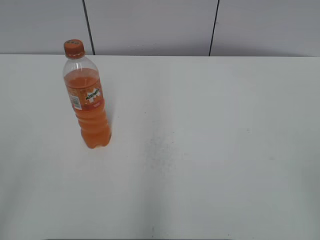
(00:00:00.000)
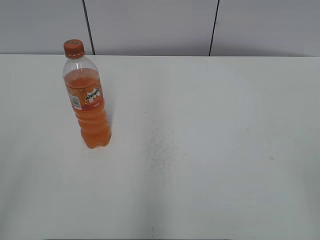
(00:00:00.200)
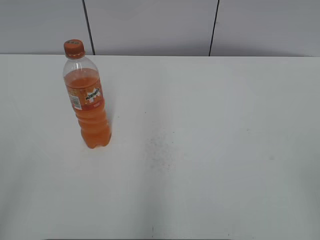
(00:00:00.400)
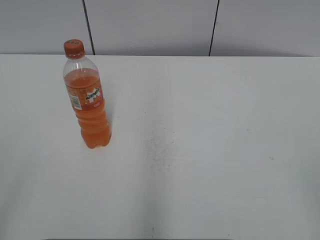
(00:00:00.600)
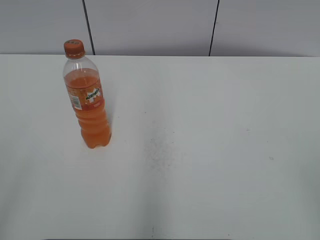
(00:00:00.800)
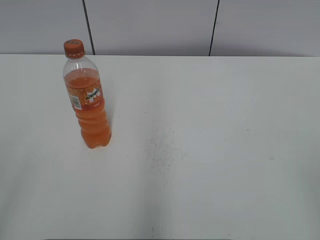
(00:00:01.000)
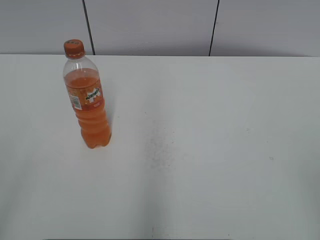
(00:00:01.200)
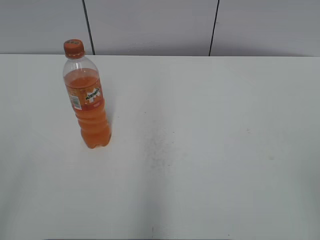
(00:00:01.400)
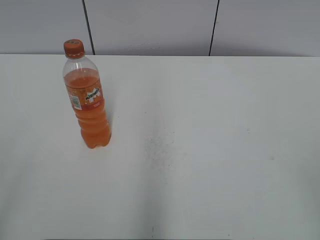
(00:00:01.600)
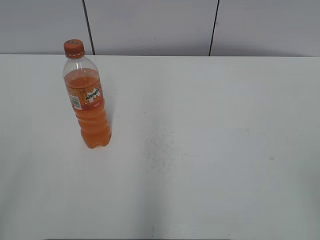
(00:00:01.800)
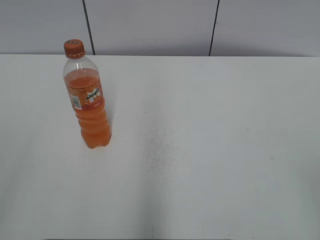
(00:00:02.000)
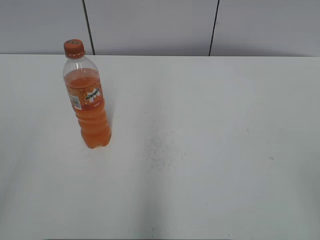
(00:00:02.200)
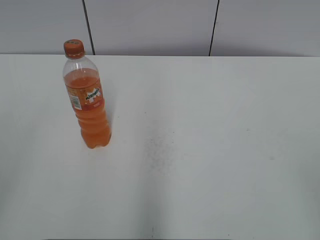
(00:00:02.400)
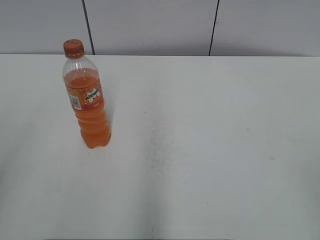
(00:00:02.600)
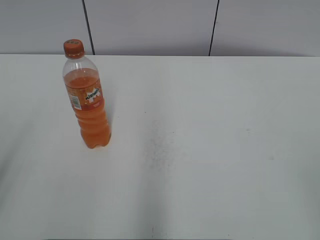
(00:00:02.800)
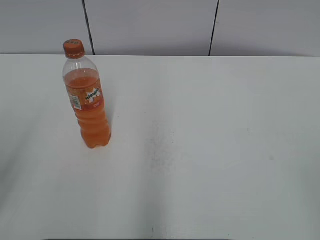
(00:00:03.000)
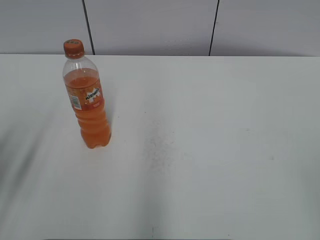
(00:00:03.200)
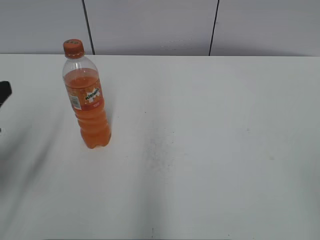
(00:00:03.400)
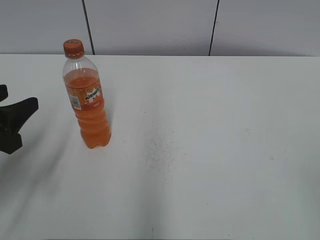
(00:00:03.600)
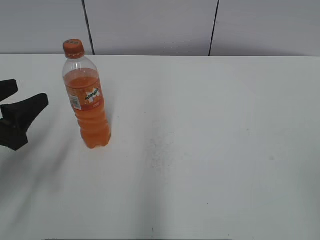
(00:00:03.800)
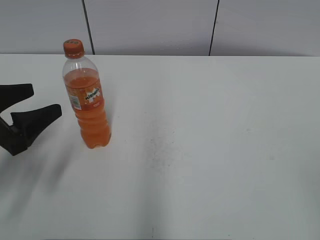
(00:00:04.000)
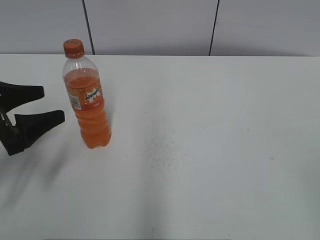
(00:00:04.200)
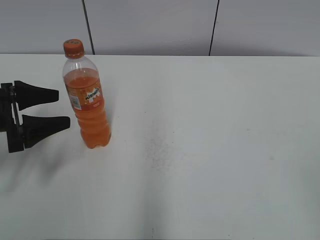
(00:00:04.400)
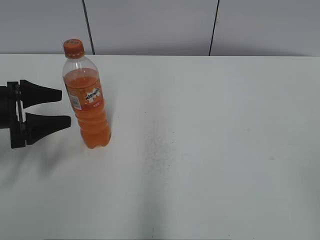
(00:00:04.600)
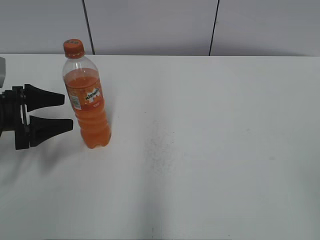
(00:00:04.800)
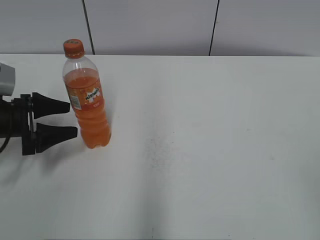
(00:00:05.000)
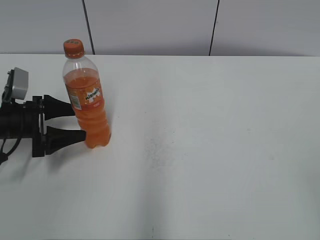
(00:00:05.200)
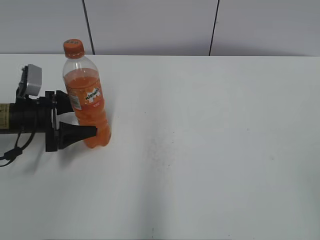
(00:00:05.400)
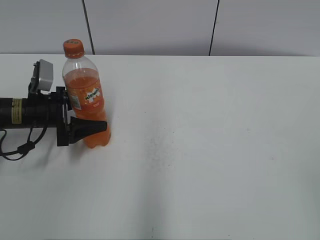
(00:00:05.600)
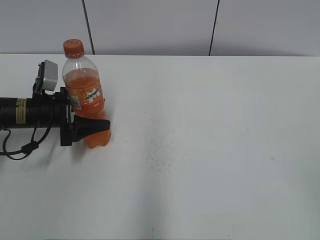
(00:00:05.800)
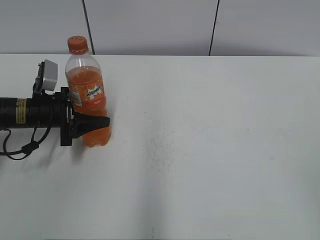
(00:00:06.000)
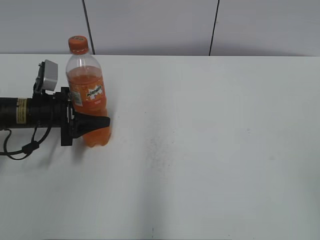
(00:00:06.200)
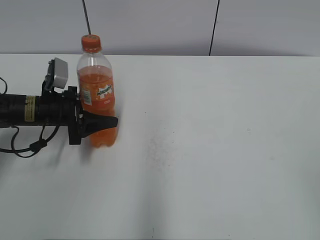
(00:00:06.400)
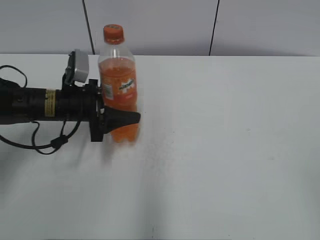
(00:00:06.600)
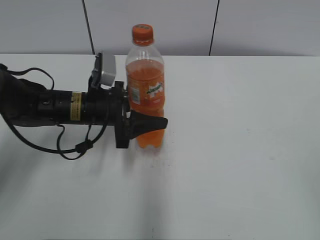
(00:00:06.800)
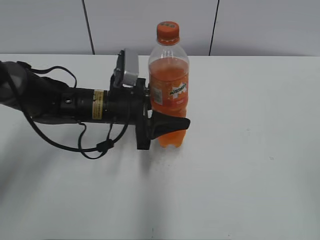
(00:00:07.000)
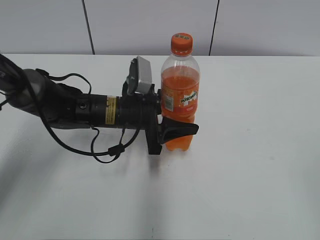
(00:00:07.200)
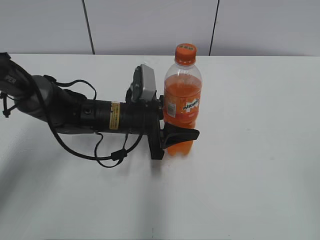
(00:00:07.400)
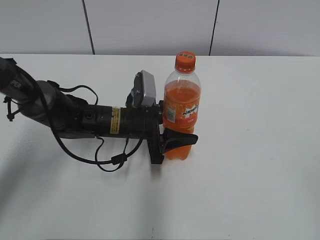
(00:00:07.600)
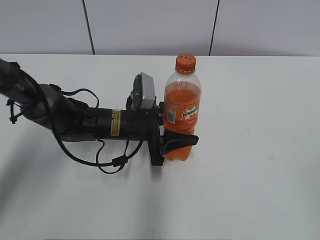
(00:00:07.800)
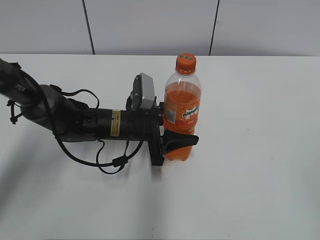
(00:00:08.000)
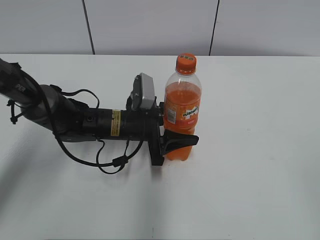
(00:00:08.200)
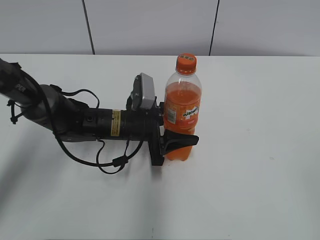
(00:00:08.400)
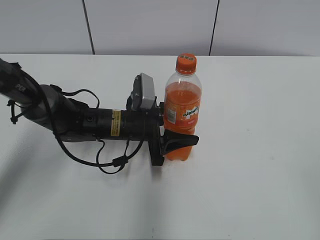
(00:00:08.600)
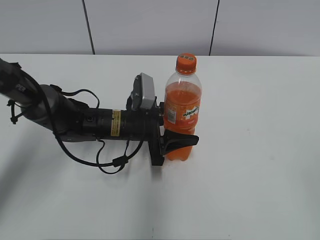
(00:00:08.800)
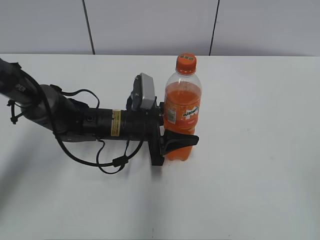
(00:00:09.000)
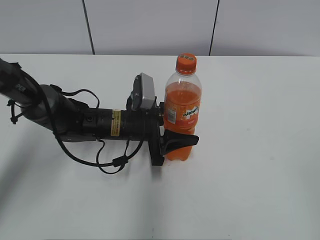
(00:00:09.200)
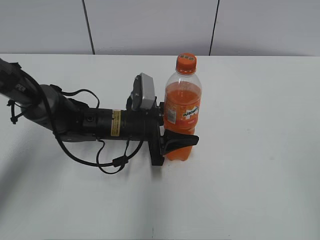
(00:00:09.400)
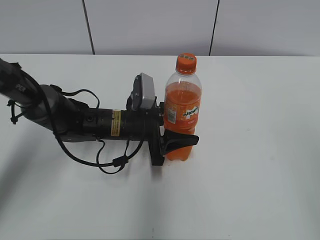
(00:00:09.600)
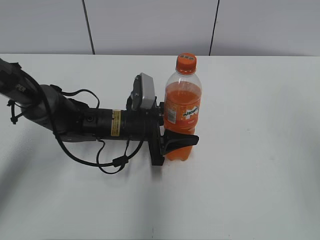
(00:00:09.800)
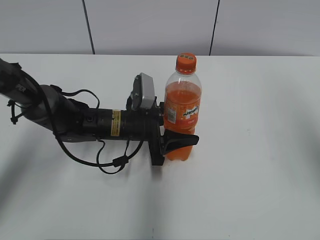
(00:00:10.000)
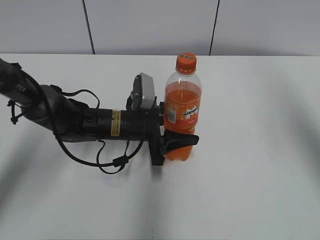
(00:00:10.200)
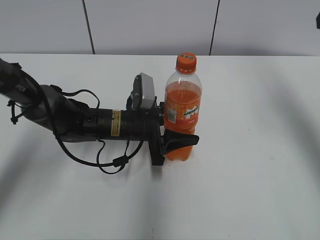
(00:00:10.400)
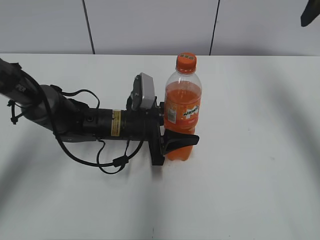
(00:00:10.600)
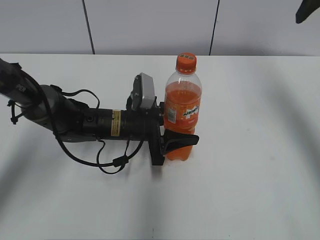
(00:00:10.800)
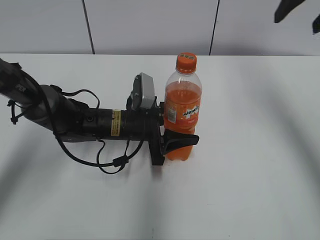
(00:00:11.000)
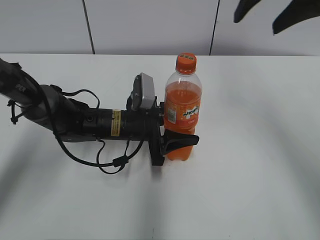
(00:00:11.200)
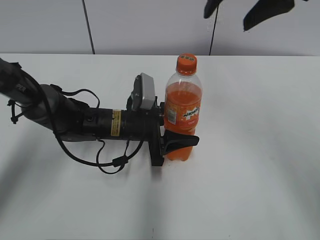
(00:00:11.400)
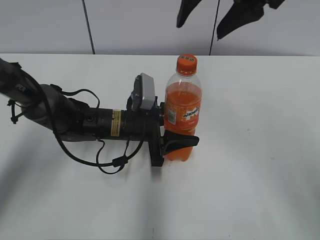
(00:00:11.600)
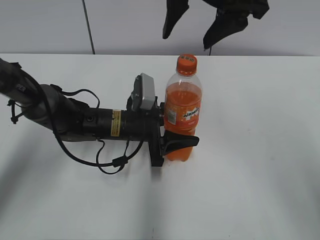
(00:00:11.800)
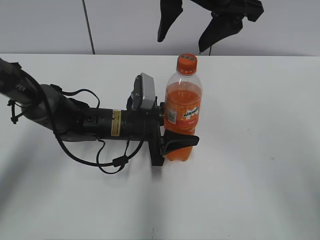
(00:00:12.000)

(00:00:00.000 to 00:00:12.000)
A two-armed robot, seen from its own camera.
Step, 00:00:00.000 - 00:00:06.000: Grab the Mirinda with the left hand.
Step, 00:00:06.200 - 00:00:08.200: Move the Mirinda from left to right.
00:00:03.000 - 00:00:04.400: The left gripper heads forward and downward, covering approximately 20 cm, and opens its fingers.
00:00:04.400 - 00:00:06.000: The left gripper travels forward and downward by approximately 10 cm, and closes its fingers.
00:00:06.000 - 00:00:07.600: The left gripper is displaced to the right by some 15 cm.
00:00:07.600 - 00:00:09.000: The two grippers keep their place.
00:00:09.000 - 00:00:10.400: The right gripper is displaced forward by approximately 30 cm.
00:00:10.400 - 00:00:12.000: The right gripper shifts some 20 cm to the left.

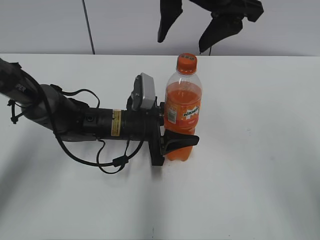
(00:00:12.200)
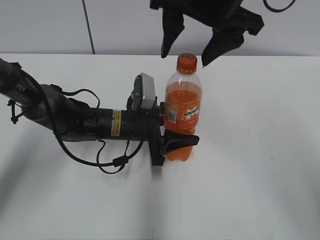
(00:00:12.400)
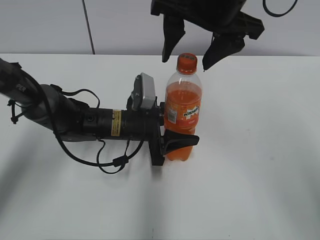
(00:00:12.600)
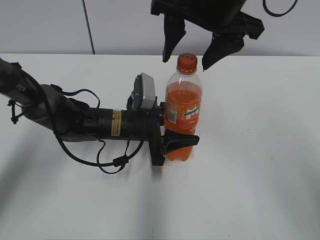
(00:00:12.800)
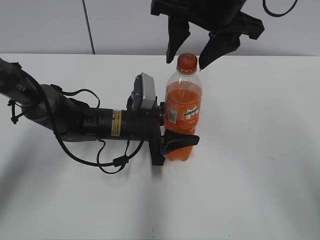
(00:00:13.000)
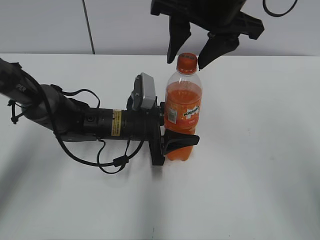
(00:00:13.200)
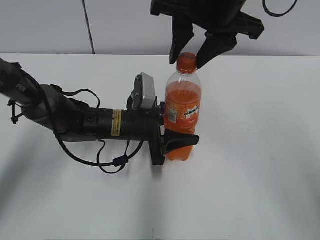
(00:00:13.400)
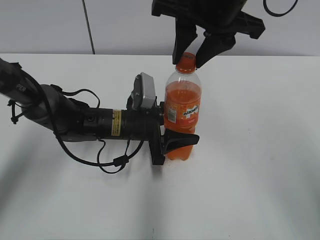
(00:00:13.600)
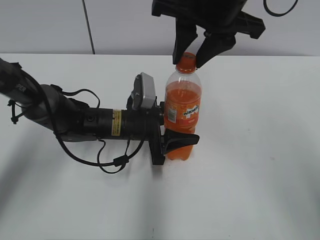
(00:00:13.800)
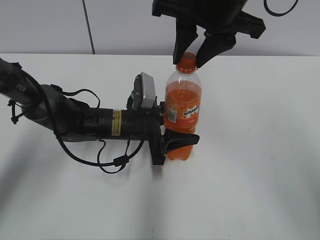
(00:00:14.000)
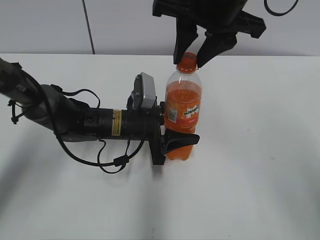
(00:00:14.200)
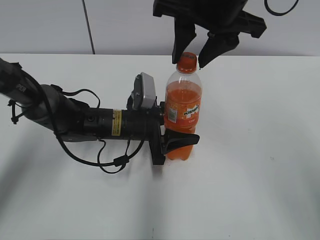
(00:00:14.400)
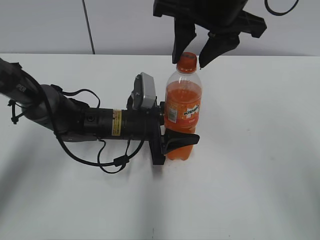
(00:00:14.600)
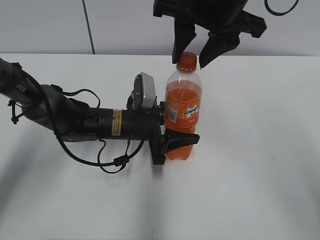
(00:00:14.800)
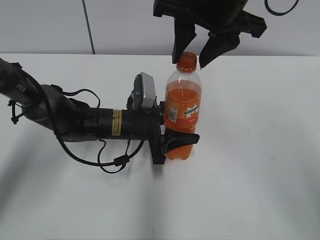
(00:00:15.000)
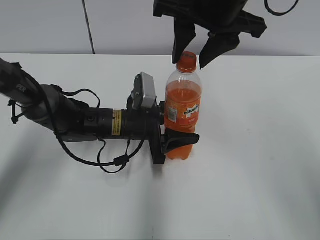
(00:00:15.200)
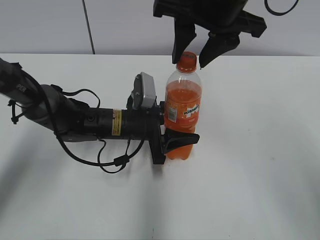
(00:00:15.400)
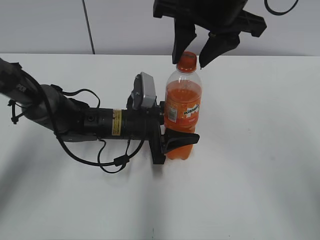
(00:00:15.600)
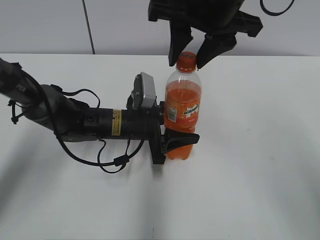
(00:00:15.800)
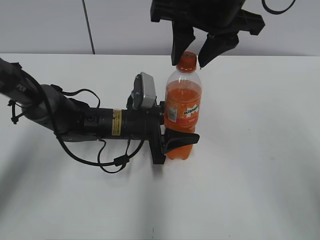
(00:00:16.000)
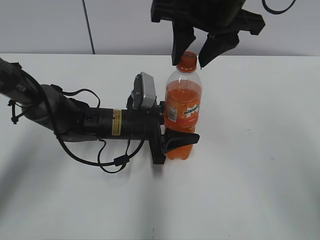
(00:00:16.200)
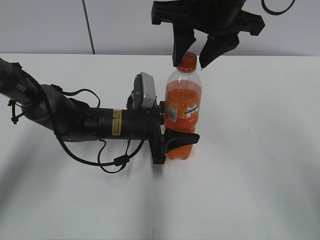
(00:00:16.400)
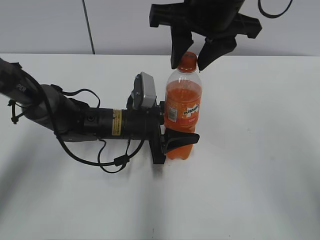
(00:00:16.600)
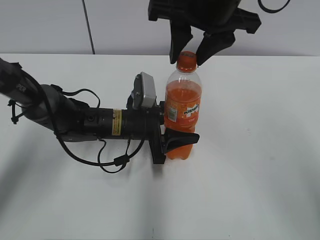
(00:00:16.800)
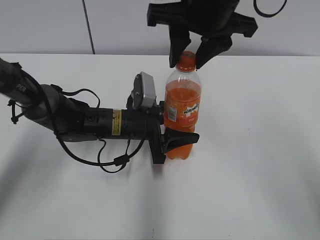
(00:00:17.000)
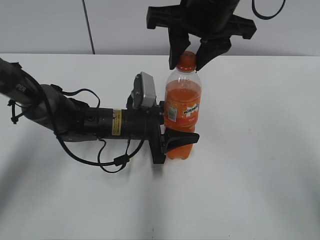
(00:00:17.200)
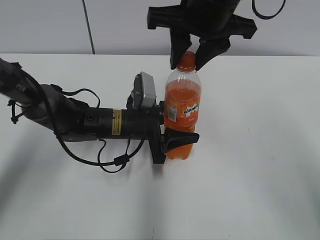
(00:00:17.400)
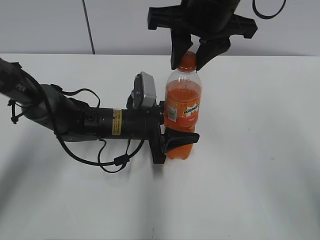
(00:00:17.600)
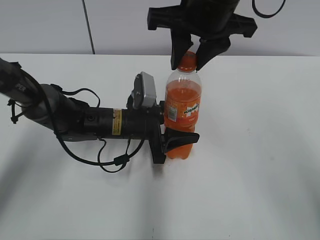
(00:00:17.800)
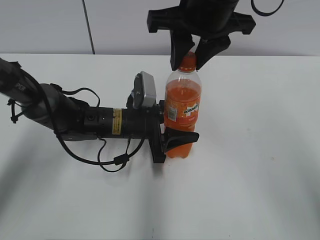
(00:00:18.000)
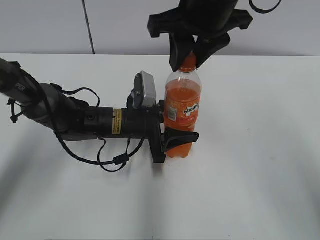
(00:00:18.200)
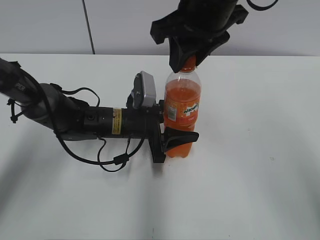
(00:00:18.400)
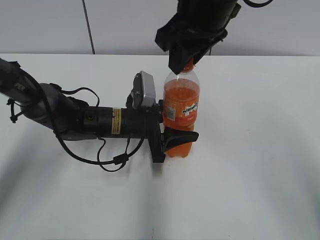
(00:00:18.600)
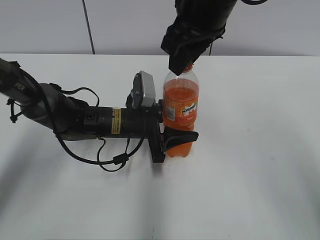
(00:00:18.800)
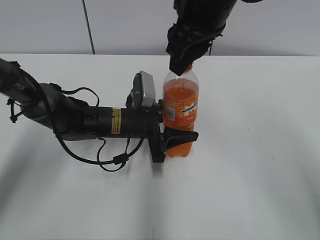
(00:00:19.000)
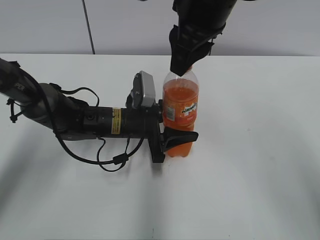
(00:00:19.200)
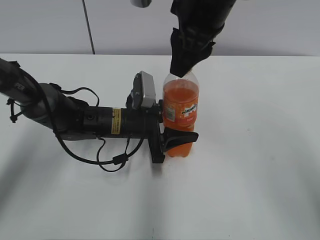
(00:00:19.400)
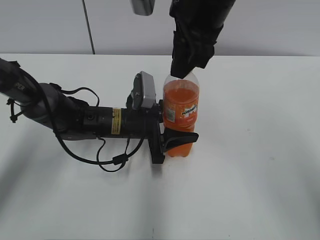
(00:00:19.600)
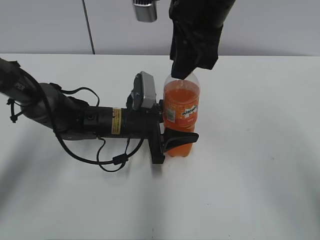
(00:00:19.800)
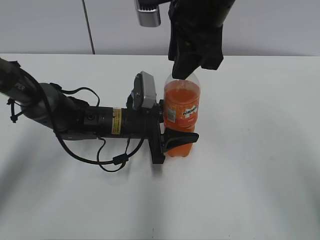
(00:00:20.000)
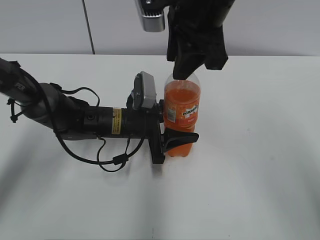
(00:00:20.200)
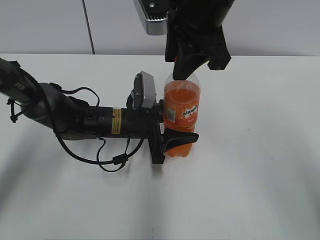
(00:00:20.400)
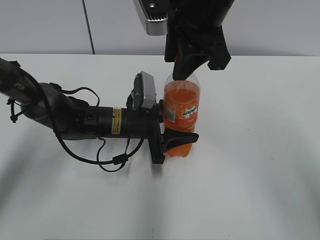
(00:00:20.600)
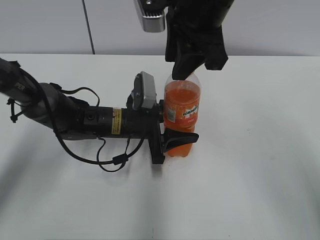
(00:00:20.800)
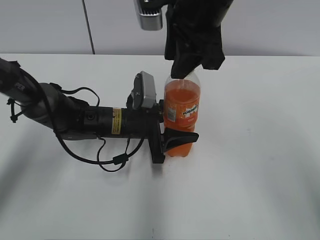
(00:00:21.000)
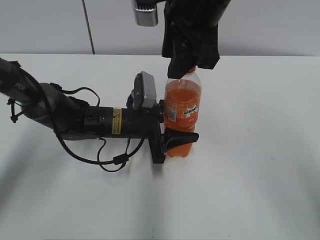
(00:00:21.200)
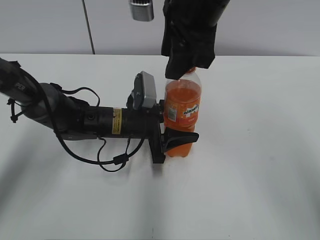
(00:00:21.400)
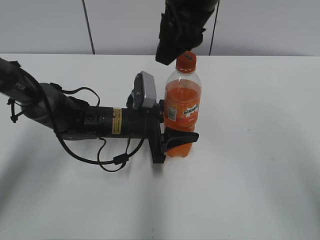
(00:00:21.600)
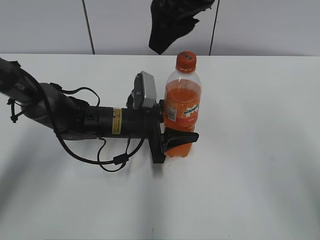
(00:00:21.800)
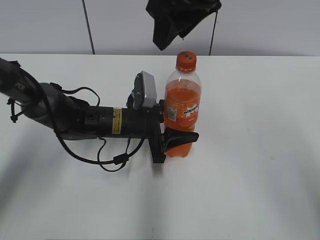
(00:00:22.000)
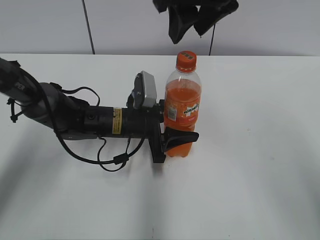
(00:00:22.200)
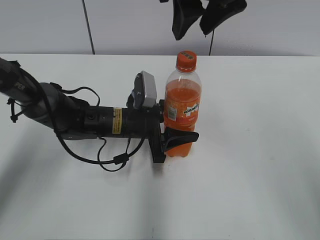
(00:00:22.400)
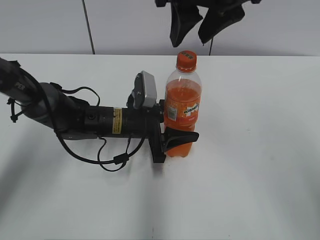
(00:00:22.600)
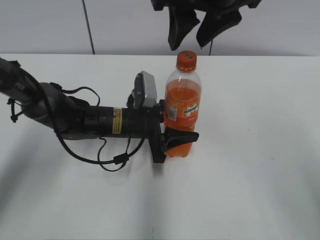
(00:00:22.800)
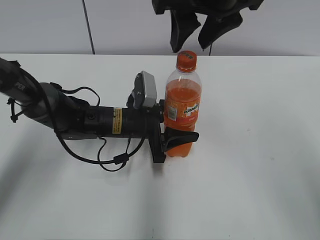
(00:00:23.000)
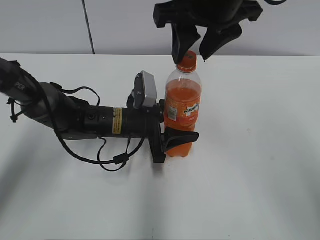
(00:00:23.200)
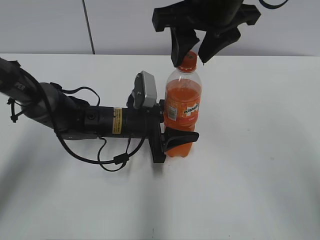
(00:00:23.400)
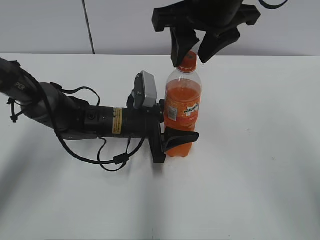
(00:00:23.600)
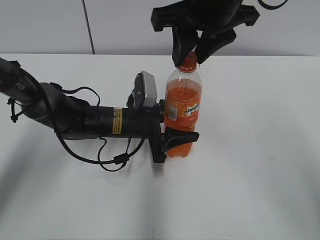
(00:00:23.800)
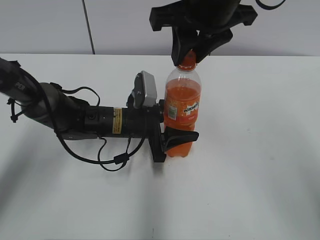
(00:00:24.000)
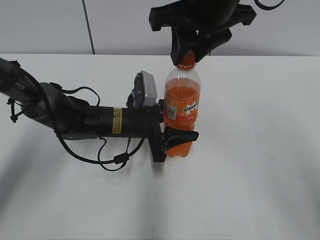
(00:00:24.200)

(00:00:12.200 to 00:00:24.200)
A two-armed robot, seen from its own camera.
00:00:12.200 - 00:00:13.800: The right gripper closes its fingers.
00:00:13.800 - 00:00:15.200: The two grippers keep their place.
00:00:15.200 - 00:00:18.200: There are only small adjustments of the grippers.
00:00:19.800 - 00:00:21.200: The grippers move only a little.
00:00:22.600 - 00:00:24.200: The right gripper closes its fingers.
